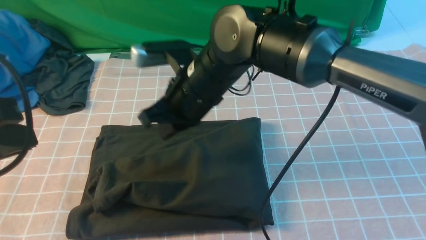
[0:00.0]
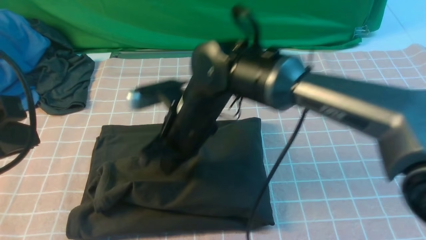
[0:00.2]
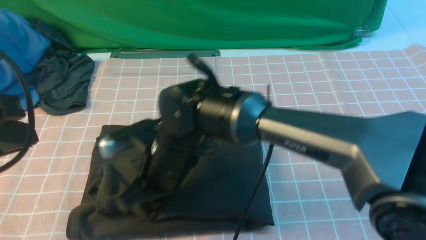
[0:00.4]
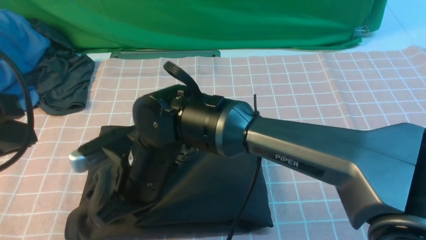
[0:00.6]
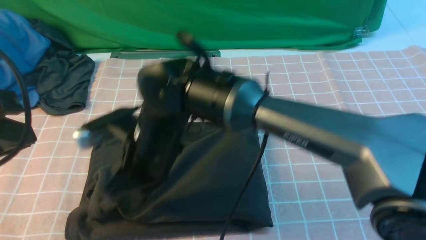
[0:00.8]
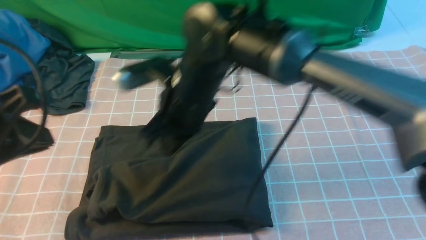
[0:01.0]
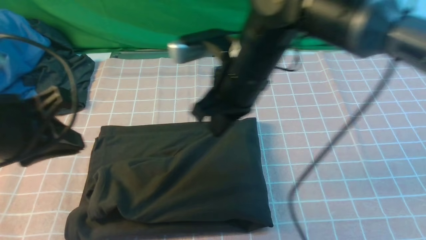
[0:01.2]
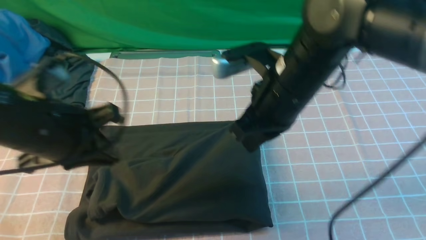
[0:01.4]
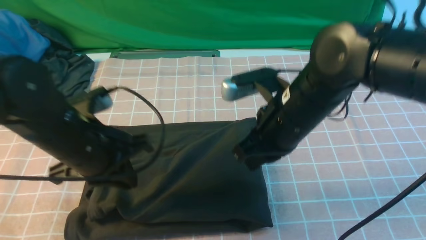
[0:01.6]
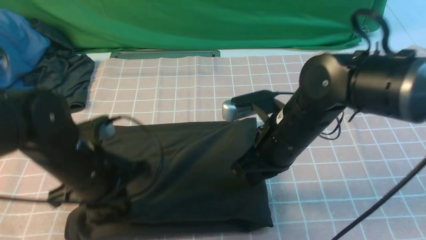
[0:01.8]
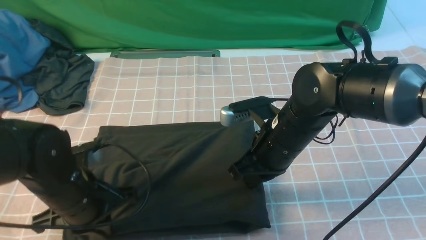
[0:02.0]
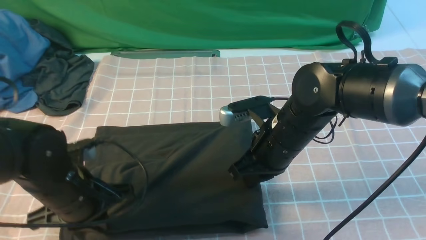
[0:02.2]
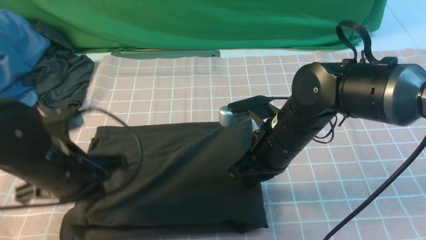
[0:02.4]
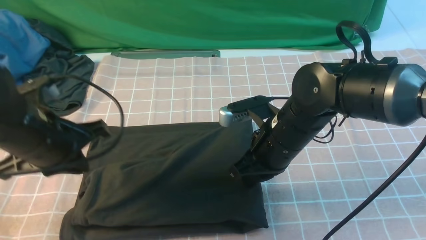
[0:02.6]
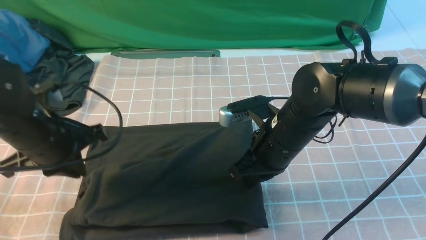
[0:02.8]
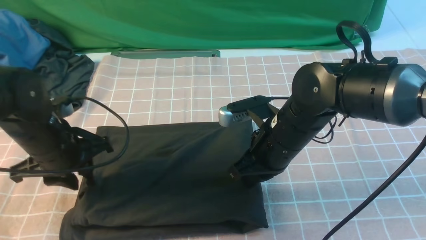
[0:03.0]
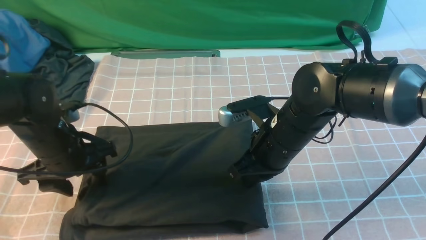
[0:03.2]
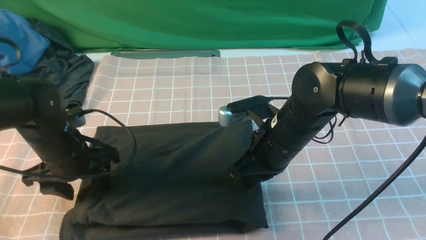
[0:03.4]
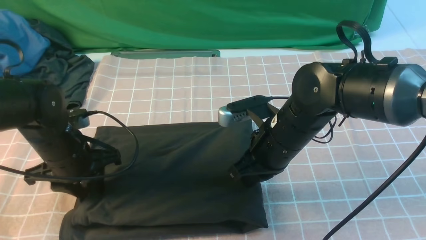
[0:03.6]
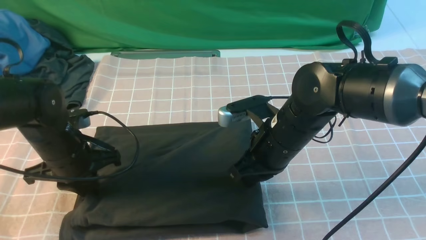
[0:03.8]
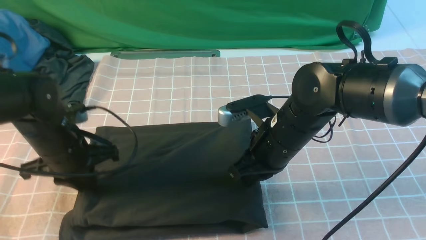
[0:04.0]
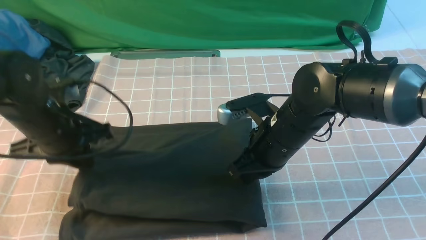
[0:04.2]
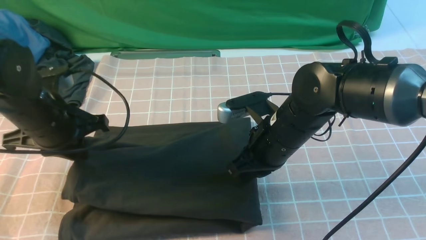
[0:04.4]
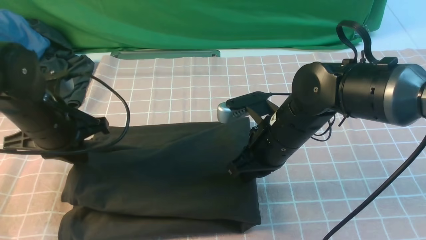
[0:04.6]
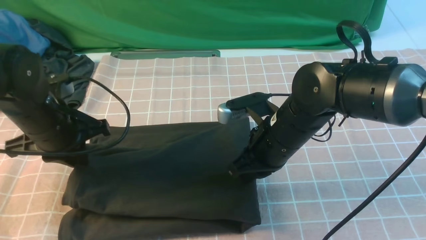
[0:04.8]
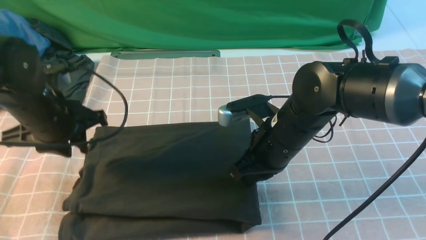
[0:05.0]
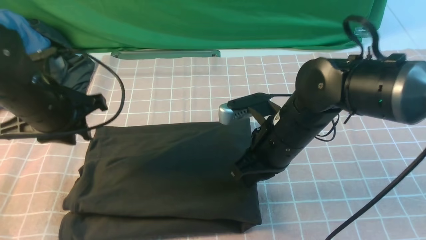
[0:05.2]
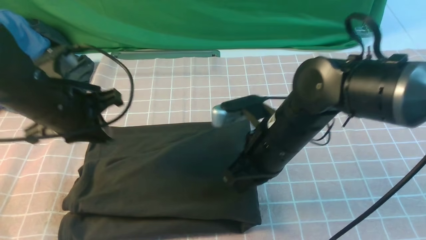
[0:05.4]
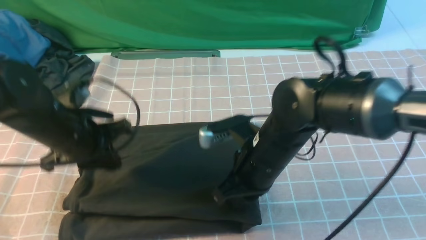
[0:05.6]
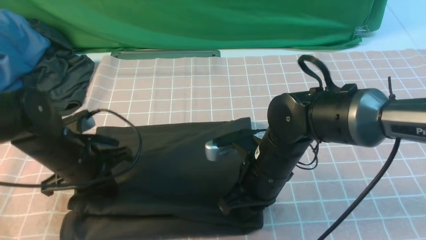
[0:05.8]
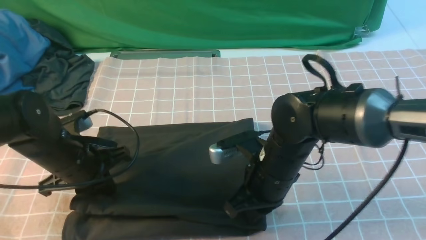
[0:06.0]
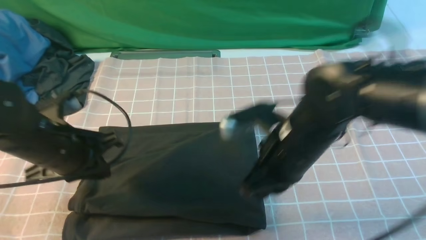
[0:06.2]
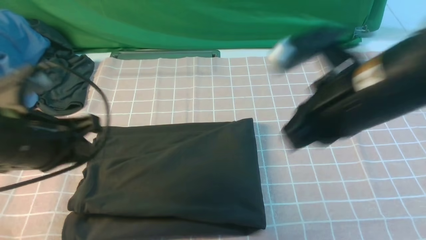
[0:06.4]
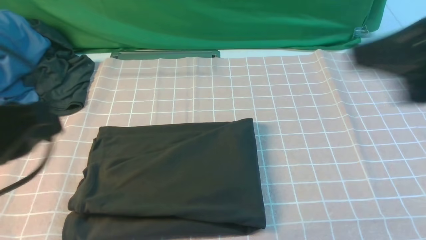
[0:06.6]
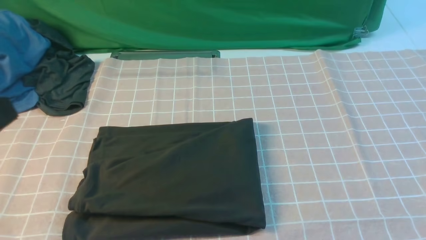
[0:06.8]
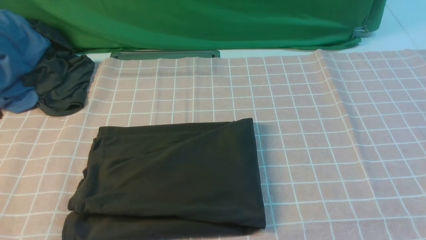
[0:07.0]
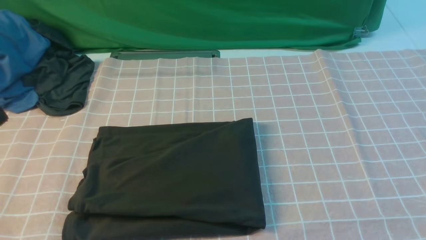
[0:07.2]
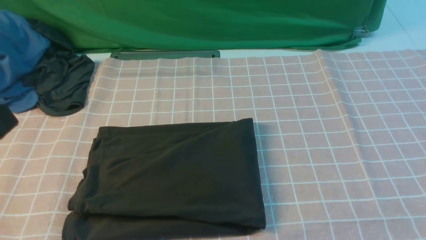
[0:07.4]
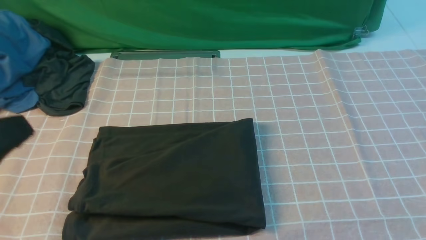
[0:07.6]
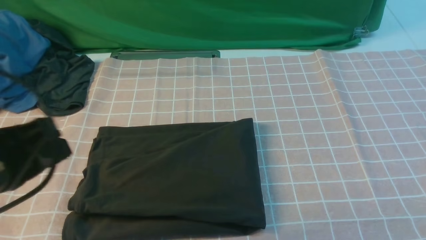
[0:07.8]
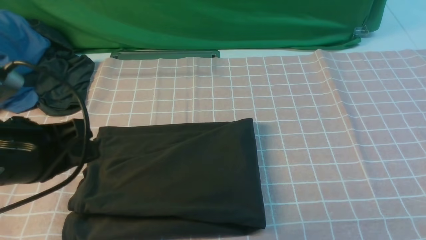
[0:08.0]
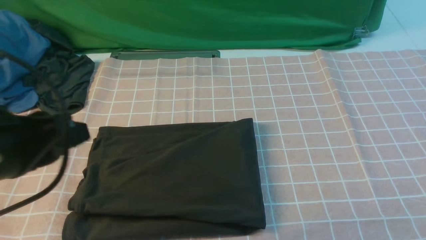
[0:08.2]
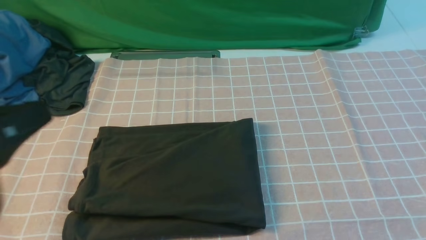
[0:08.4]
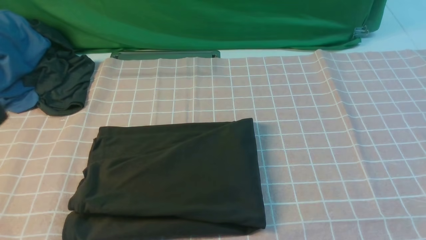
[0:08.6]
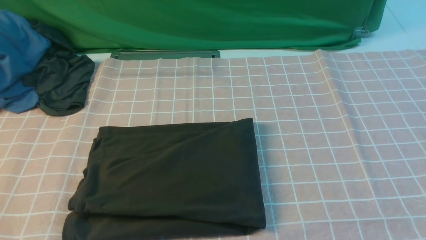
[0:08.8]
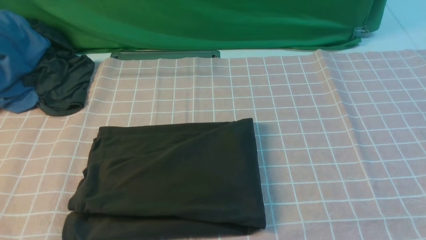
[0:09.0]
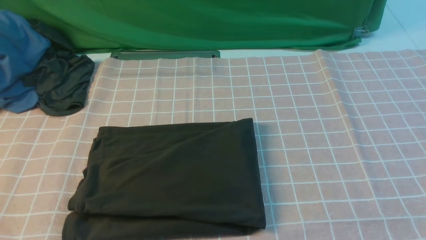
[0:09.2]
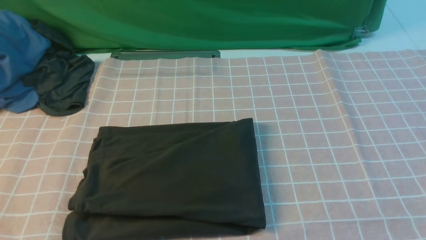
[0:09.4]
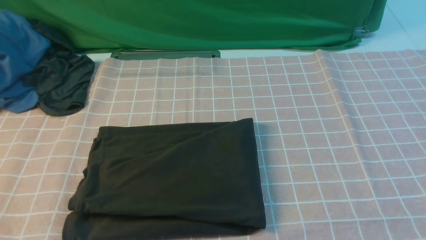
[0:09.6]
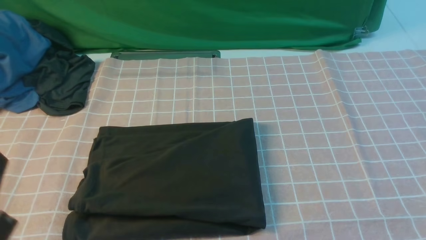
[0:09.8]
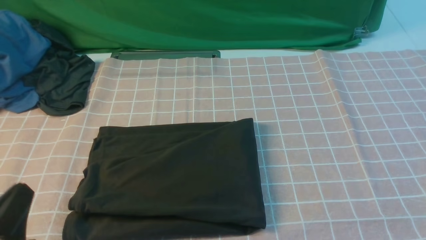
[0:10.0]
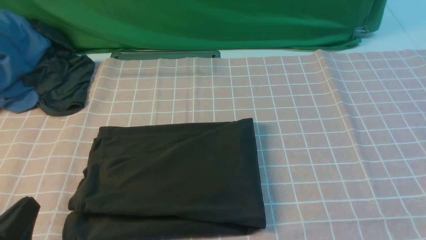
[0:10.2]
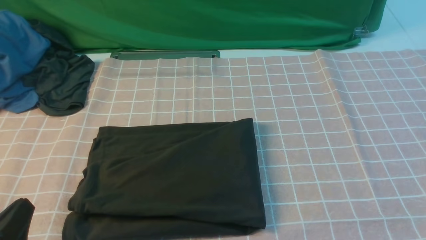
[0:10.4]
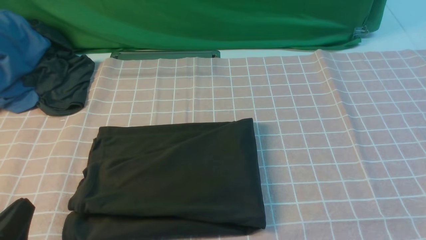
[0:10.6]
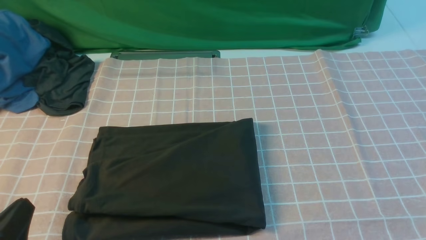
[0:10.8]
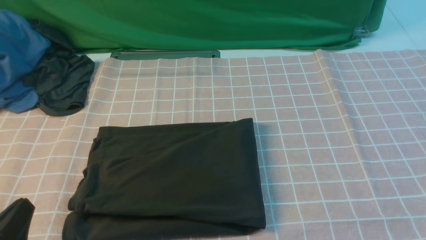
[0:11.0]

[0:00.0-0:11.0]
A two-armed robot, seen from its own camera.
0:00.0 to 0:01.6: The right gripper moves to the right, roughly 15 cm. Meanwhile the left gripper travels downward, forward and to the right by some 20 cm.
0:01.6 to 0:03.2: The left gripper moves downward and to the left, some 10 cm, and opens up.
0:03.2 to 0:04.8: The left gripper goes approximately 5 cm upward, and closes its fingers.
0:04.8 to 0:06.2: The right gripper is displaced upward by about 5 cm. Meanwhile the left gripper heads backward, covering roughly 5 cm.
0:06.2 to 0:07.8: The right gripper moves backward, to the right and upward, approximately 35 cm. The left gripper moves backward and upward, roughly 15 cm.
0:07.8 to 0:09.4: The left gripper heads backward, covering about 10 cm.
0:09.4 to 0:11.0: The left gripper travels downward by some 20 cm.

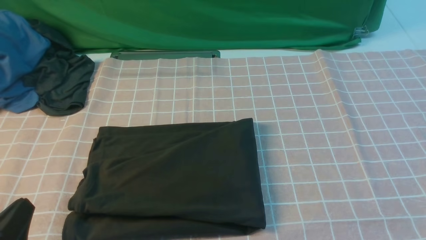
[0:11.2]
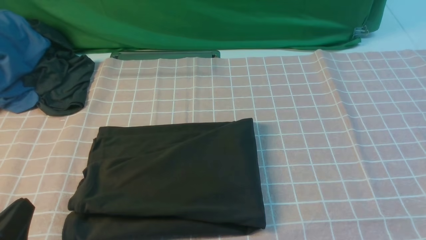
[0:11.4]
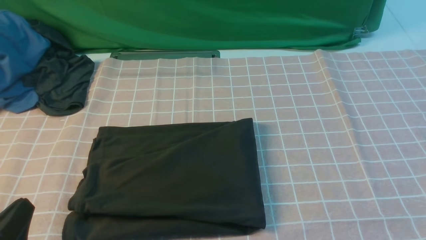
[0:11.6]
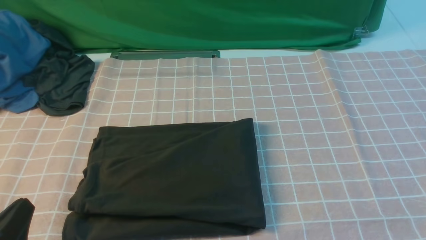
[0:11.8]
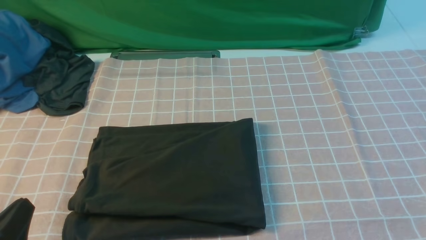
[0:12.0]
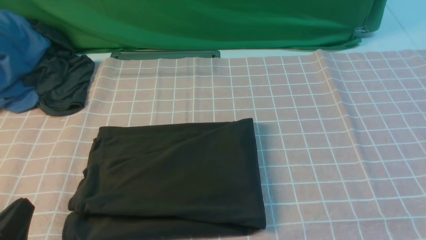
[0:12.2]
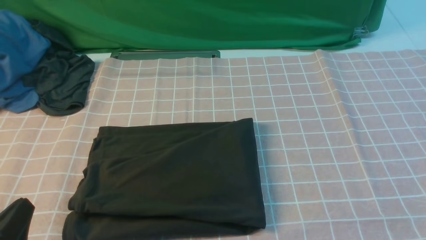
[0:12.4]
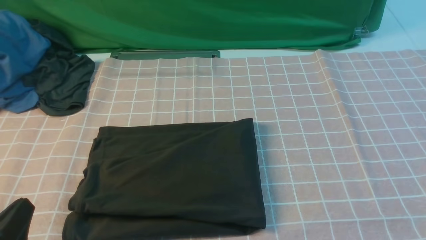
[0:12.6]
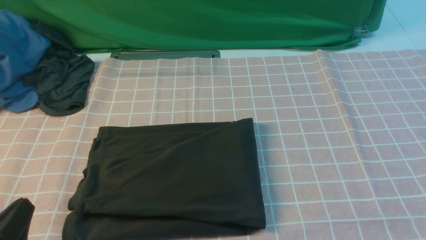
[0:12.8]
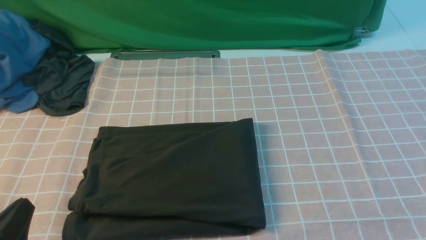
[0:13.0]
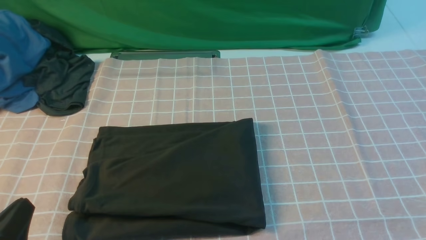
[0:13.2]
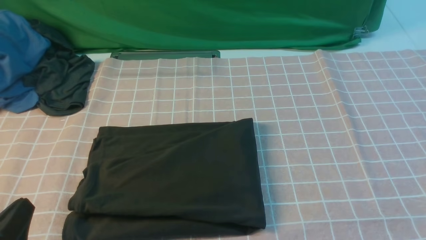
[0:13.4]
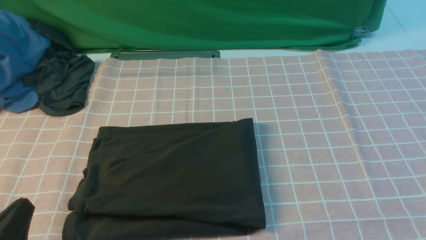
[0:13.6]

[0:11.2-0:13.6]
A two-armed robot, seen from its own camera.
0:12.4 to 0:13.6: Both grippers stay put.
